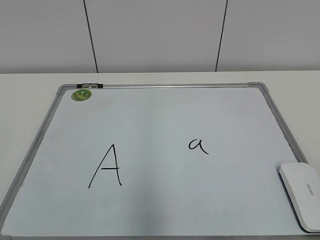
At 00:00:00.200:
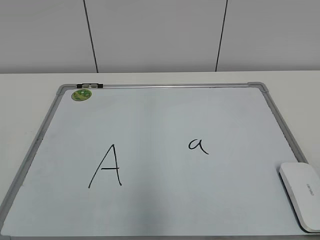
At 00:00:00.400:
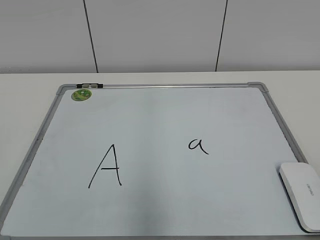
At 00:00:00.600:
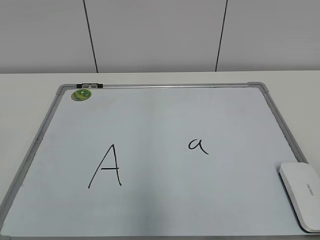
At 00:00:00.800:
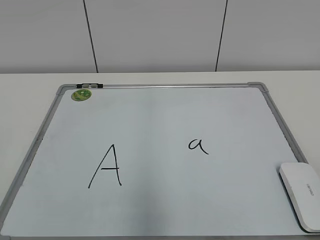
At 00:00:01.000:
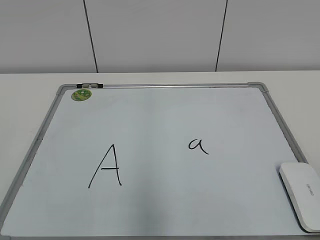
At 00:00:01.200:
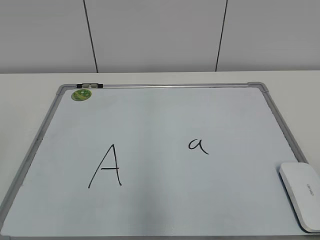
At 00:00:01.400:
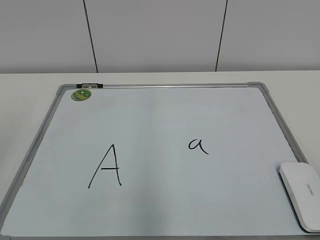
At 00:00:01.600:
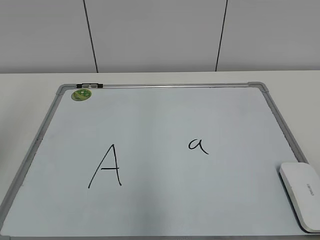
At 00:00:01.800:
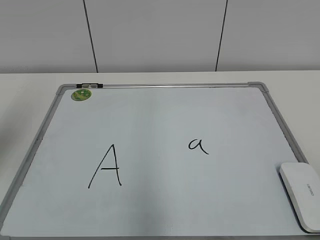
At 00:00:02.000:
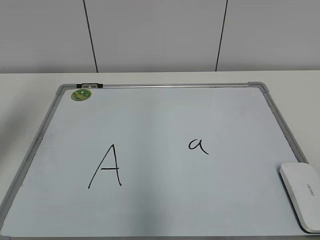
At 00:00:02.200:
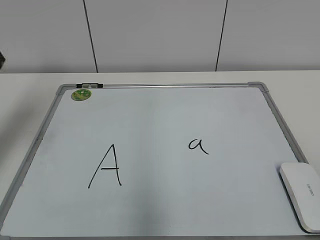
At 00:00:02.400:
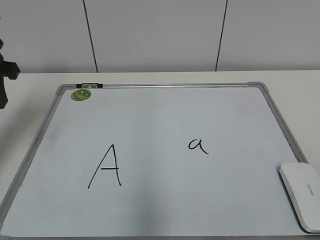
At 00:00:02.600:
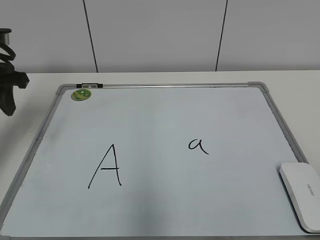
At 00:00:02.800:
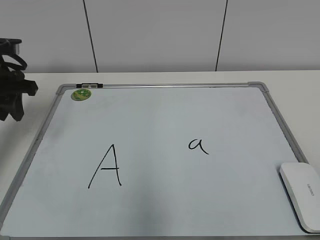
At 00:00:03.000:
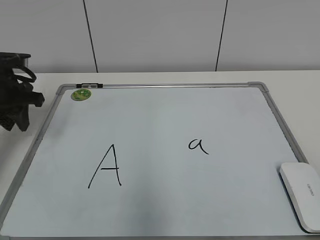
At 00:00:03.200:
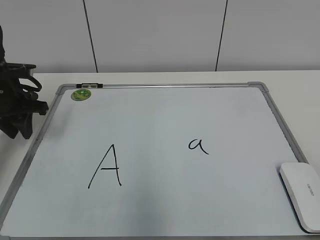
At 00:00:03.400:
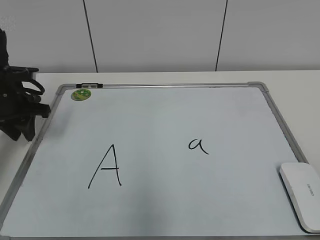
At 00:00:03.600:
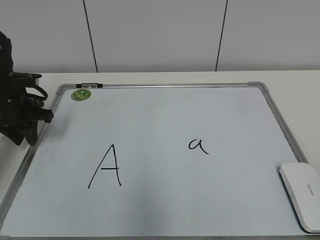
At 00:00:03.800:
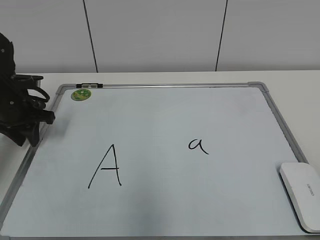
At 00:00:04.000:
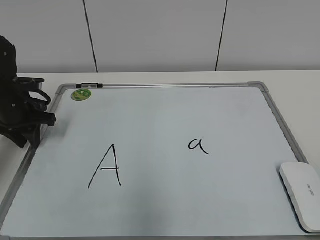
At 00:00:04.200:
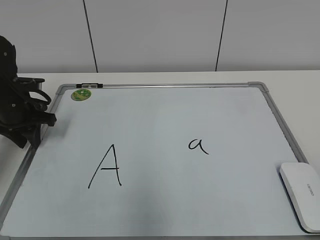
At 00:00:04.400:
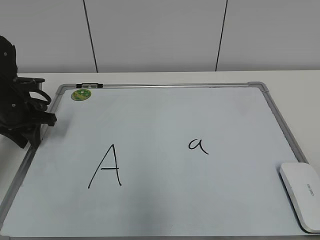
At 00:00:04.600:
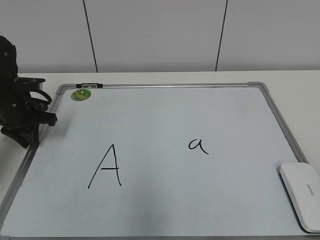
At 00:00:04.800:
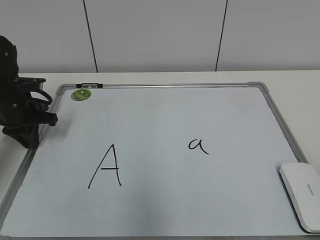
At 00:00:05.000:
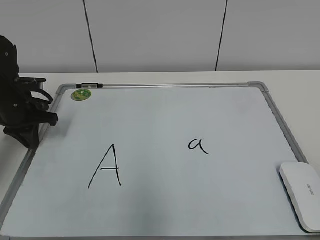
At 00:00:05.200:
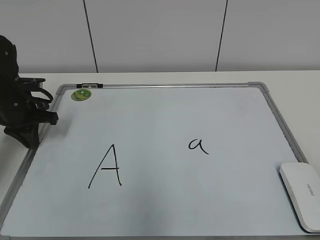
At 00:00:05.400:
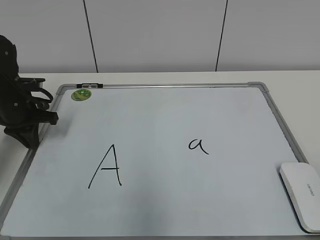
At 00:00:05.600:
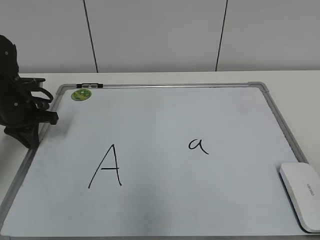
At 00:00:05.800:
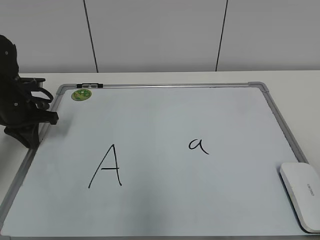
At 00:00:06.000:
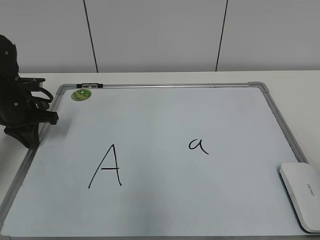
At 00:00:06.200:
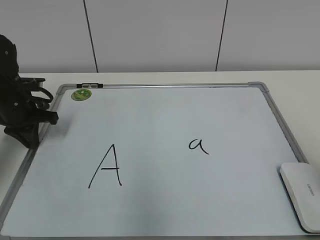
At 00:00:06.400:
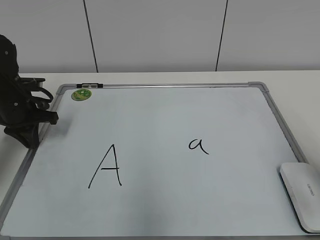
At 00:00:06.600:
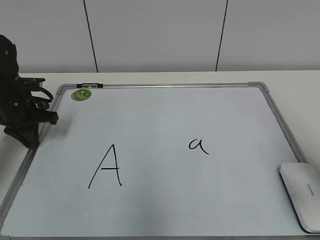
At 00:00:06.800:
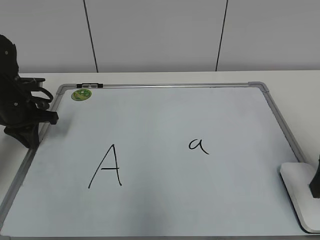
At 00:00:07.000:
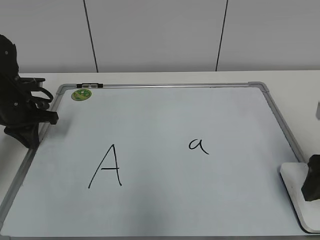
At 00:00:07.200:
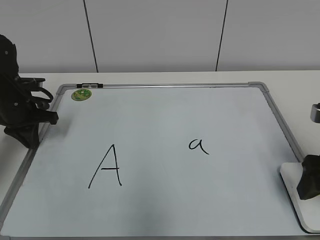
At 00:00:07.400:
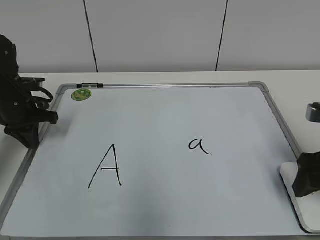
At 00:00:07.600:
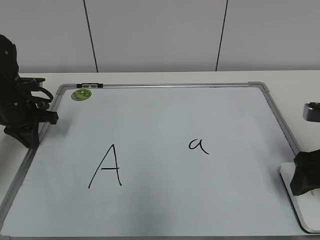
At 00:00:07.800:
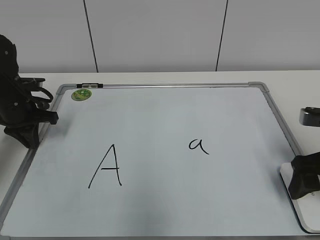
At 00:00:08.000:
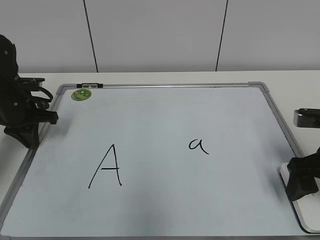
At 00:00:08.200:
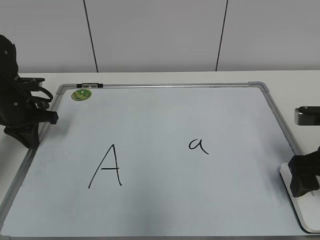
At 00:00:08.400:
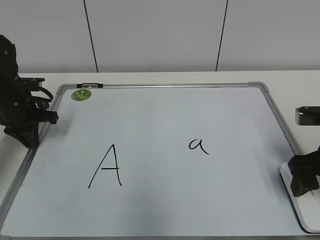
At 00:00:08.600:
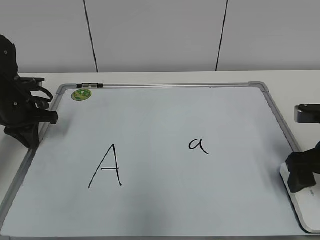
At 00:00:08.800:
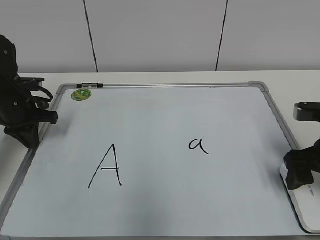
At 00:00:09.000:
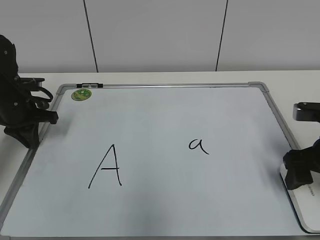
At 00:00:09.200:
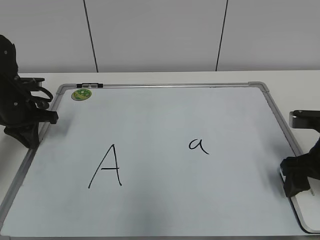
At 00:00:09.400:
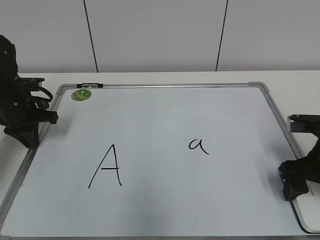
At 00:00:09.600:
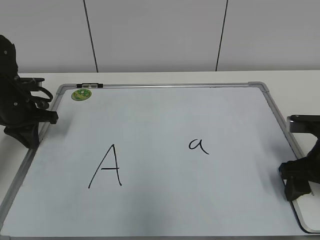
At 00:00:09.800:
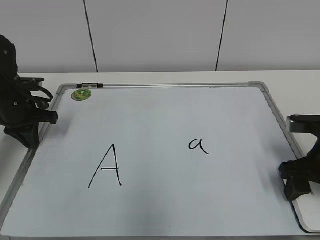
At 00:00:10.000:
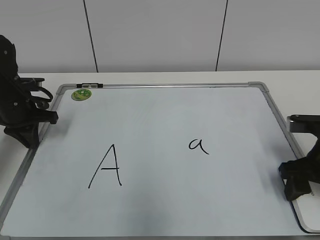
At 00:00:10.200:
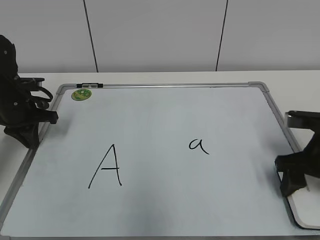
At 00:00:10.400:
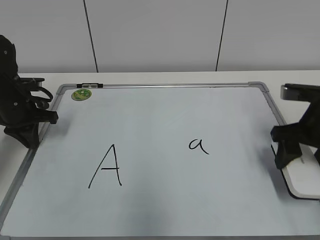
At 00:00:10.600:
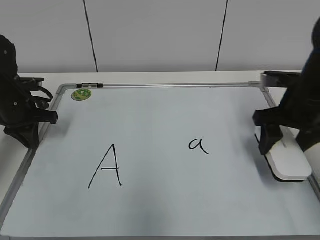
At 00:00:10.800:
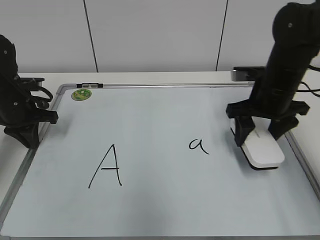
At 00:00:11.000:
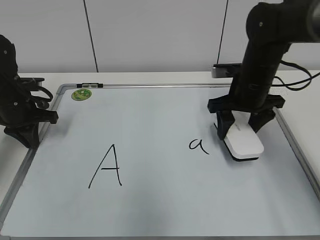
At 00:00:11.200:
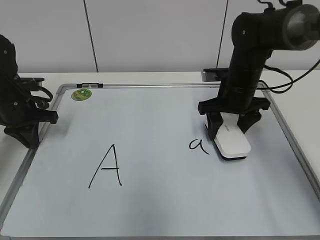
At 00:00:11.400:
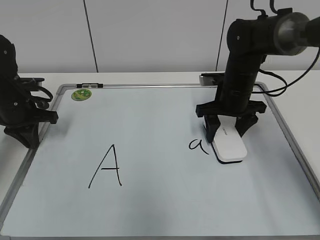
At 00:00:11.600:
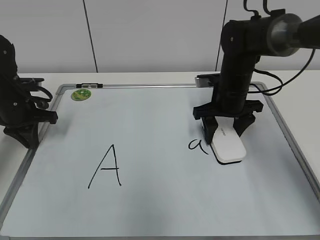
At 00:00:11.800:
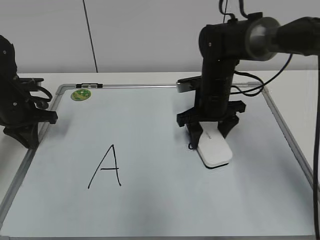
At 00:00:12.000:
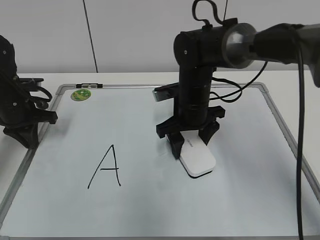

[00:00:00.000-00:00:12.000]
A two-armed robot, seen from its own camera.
Task of the whole recording: pick up the eraser on the blackboard and erase the letter "a".
Step, 00:00:00.000 to 00:00:04.800: Hold the drawing board steady with your left hand.
Step, 00:00:05.000 to 00:00:09.800: Grab the eraser with your right hand.
00:00:01.600 to 00:00:03.000: The left gripper shifts some 25 cm forward and downward.
00:00:03.000 to 00:00:04.400: The left gripper heads downward, covering approximately 5 cm.
00:00:06.000 to 00:00:07.600: The right gripper travels forward and downward by some 20 cm, and opens up.
00:00:07.600 to 00:00:09.000: The grippers stay close to where they were, moving slightly.
00:00:09.000 to 00:00:10.400: The right gripper closes up.
00:00:10.400 to 00:00:12.000: The right gripper shifts about 20 cm to the left and forward.

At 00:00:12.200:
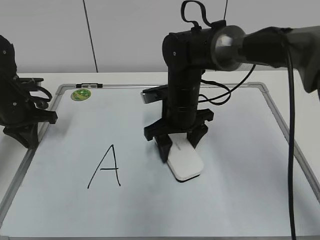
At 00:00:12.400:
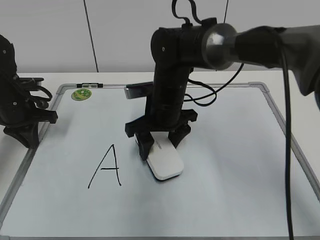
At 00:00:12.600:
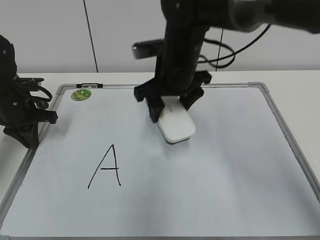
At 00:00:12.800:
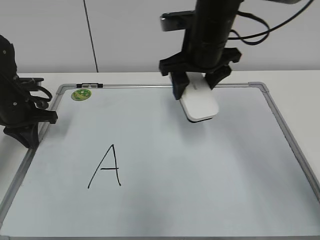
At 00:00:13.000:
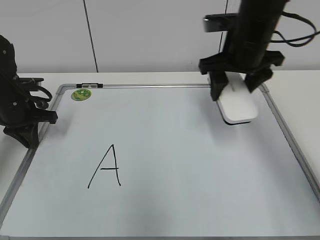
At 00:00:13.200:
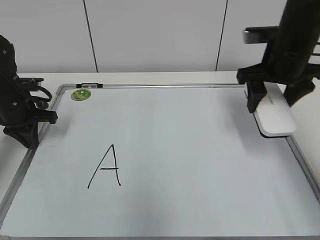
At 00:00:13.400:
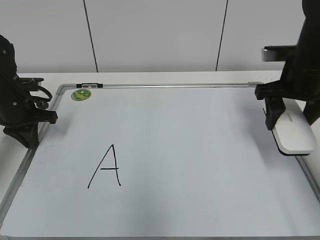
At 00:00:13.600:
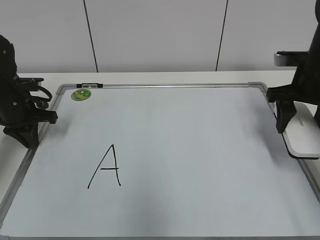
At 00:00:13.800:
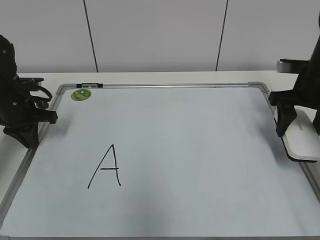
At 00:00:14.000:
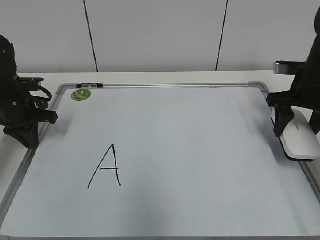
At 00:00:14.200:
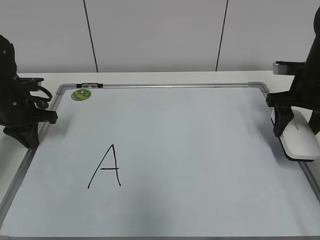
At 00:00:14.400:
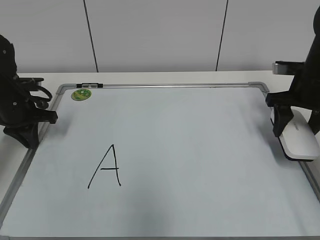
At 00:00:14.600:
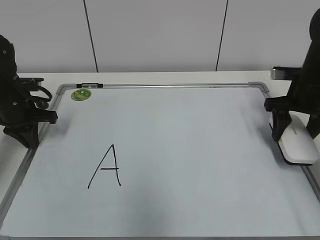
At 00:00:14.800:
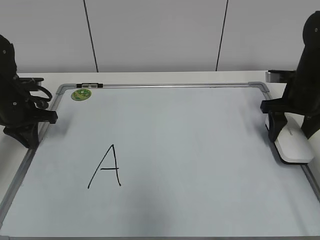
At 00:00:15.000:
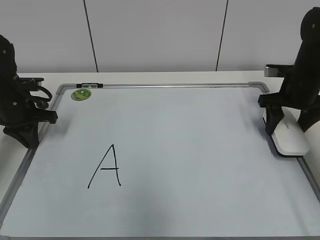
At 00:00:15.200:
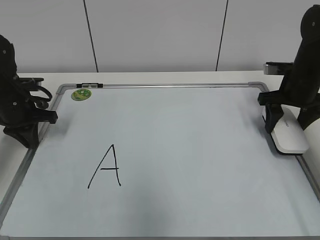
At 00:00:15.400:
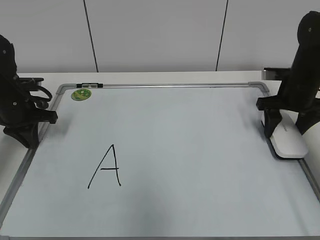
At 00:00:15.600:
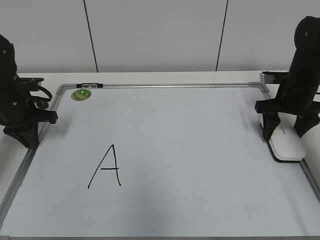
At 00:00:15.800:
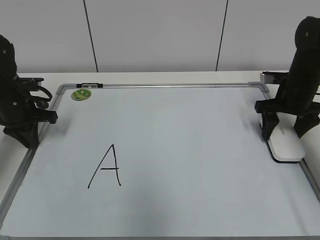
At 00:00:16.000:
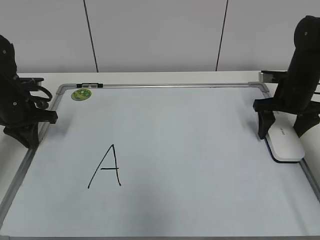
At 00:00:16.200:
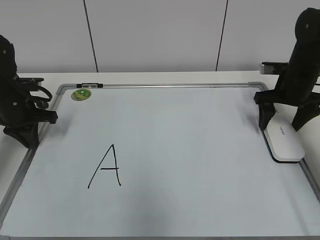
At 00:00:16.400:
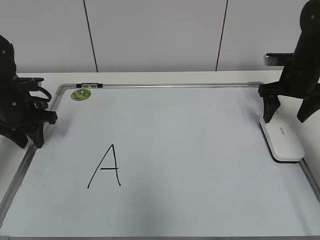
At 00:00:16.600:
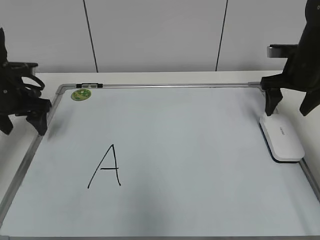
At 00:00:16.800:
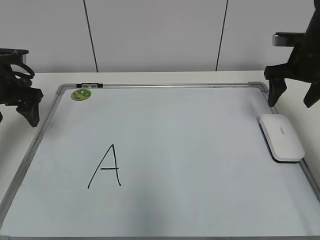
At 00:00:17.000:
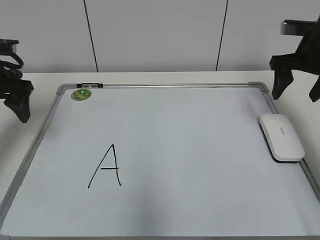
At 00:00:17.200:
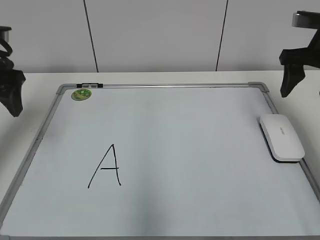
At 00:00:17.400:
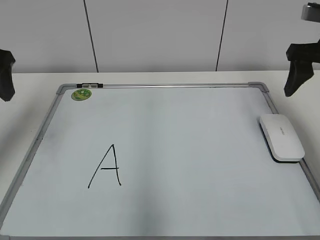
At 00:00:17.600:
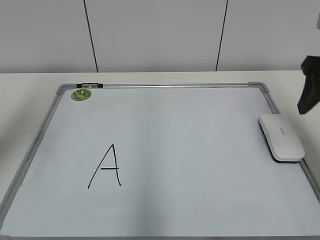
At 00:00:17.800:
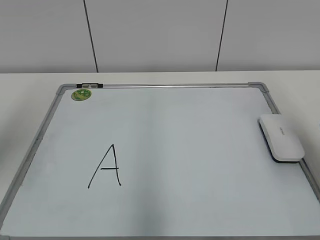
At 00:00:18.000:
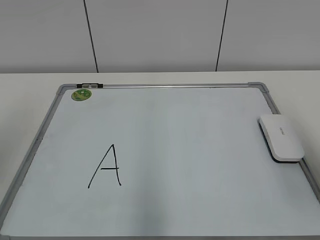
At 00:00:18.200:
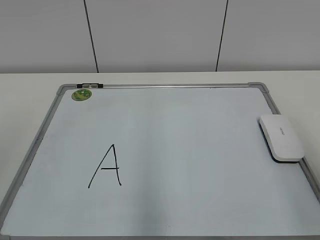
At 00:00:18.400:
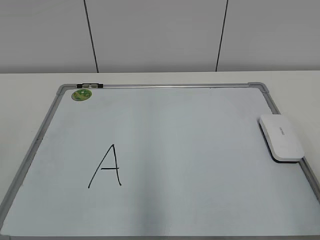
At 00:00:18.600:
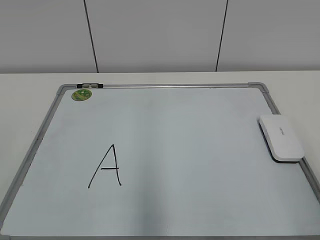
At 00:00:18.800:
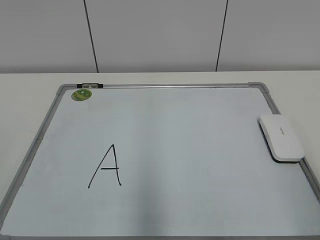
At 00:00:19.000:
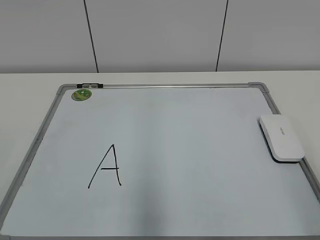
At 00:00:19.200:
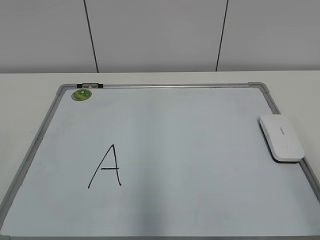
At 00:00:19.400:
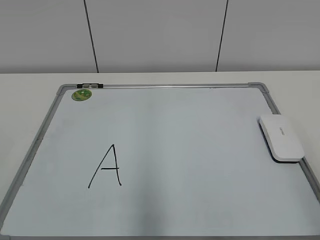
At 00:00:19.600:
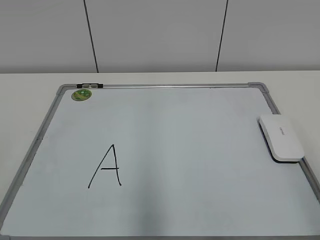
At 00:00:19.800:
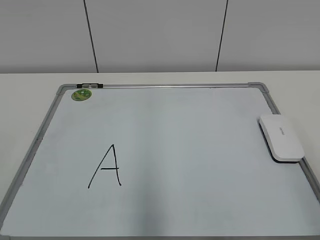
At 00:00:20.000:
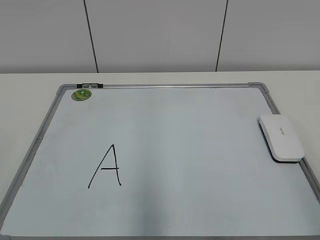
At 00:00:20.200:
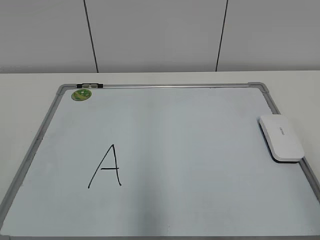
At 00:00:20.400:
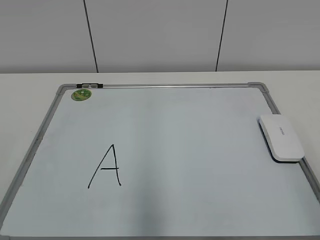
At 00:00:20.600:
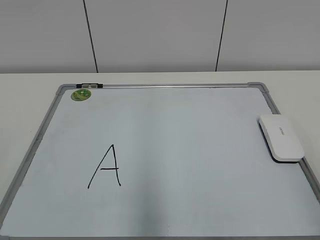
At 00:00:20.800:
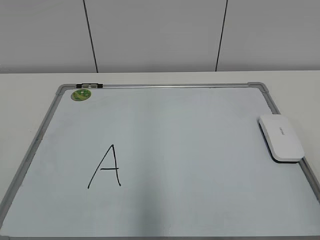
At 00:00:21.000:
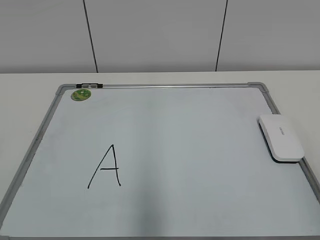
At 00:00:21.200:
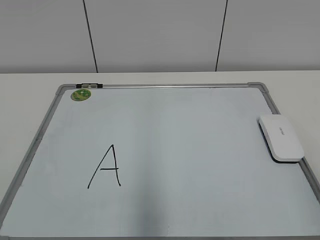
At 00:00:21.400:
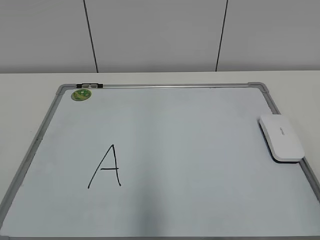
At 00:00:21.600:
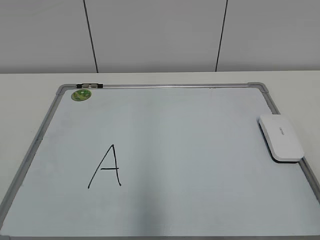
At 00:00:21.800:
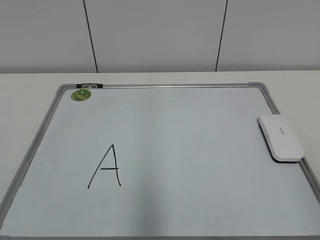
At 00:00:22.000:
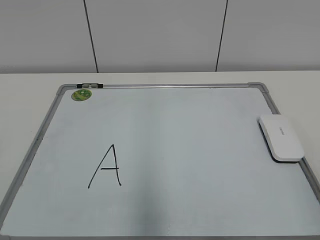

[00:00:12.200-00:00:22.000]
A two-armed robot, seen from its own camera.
Task of the whole recording: pick up the eraser on the blackboard and erase the letter "a".
Step, 00:00:12.400 to 00:00:15.200: Put down the eraser with your right hand.
00:00:12.200 to 00:00:13.600: The right gripper goes roughly 20 cm to the right.
00:00:13.600 to 00:00:15.000: The right gripper goes about 5 cm downward.
00:00:15.000 to 00:00:16.400: The left gripper opens; the right gripper opens its fingers.
00:00:16.400 to 00:00:17.800: The right gripper goes some 25 cm backward and upward, and closes its fingers. The left gripper shifts some 30 cm upward and backward, and opens.
00:00:17.800 to 00:00:19.200: The grippers both shift backward by about 20 cm.
